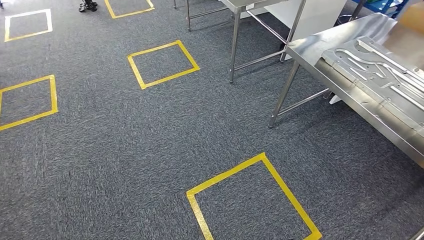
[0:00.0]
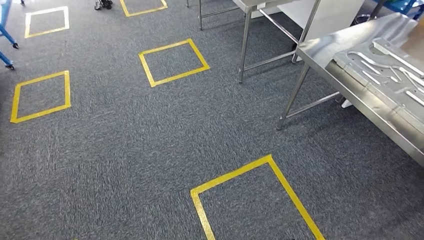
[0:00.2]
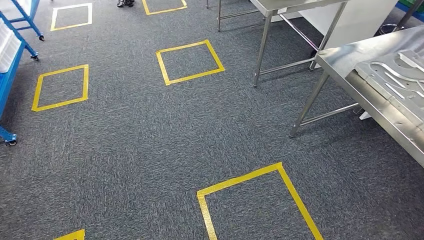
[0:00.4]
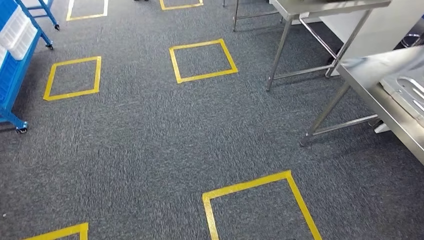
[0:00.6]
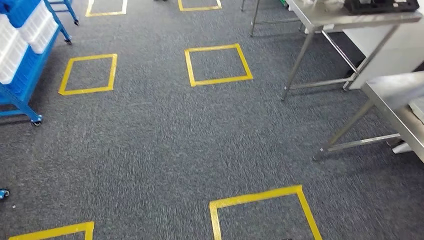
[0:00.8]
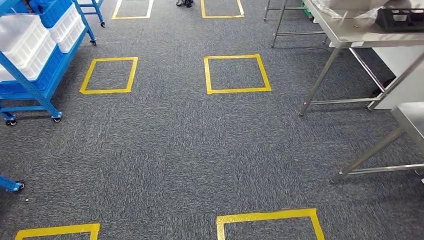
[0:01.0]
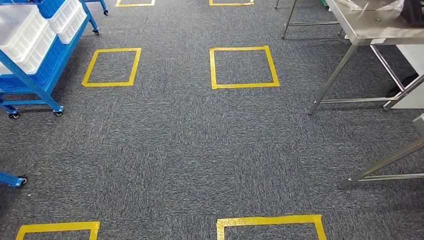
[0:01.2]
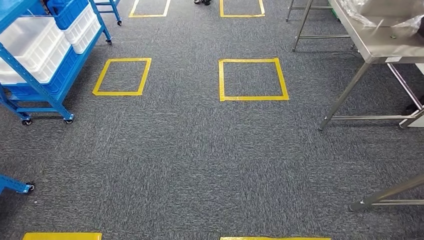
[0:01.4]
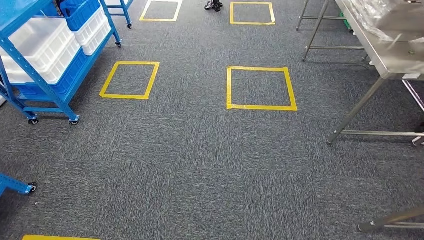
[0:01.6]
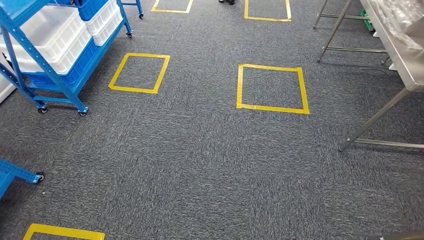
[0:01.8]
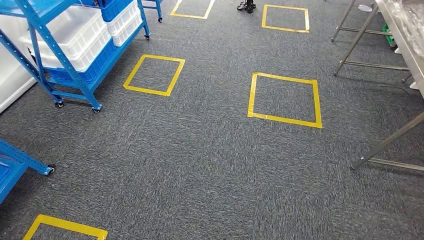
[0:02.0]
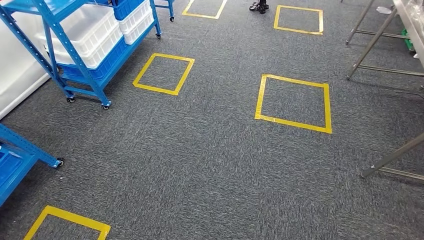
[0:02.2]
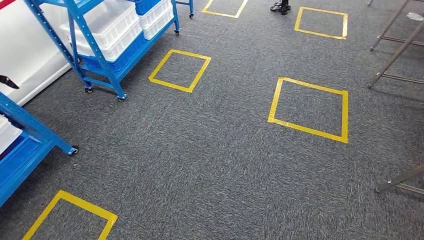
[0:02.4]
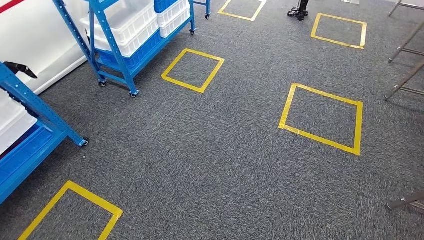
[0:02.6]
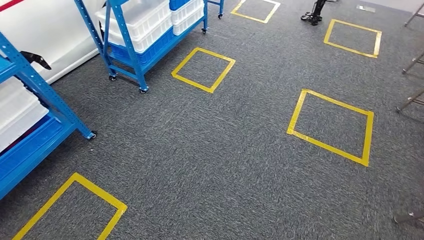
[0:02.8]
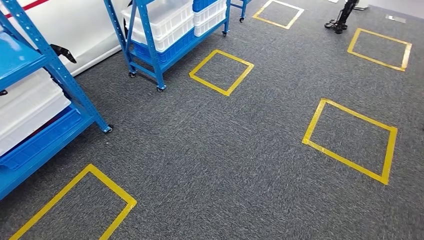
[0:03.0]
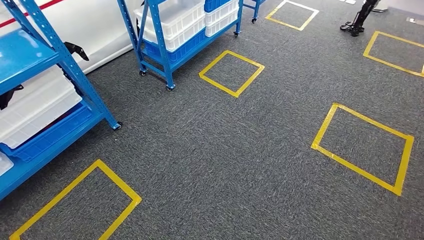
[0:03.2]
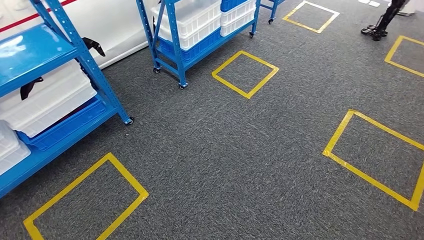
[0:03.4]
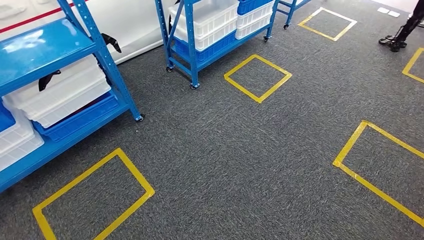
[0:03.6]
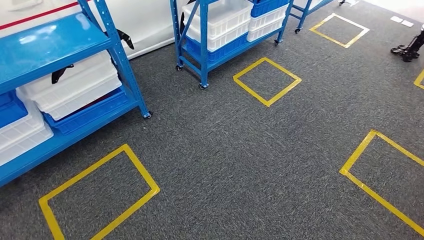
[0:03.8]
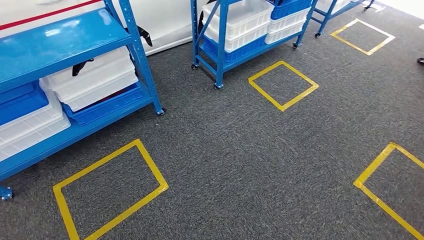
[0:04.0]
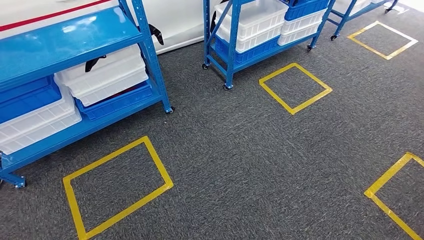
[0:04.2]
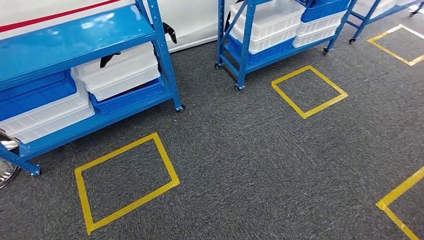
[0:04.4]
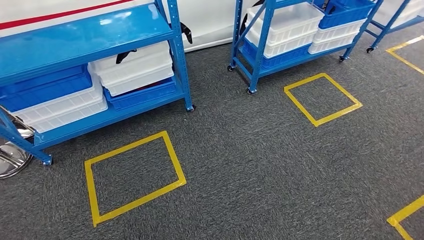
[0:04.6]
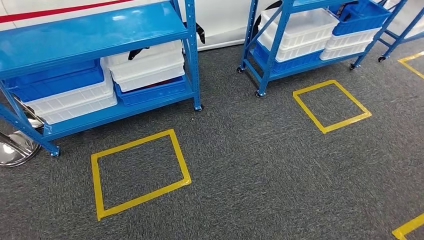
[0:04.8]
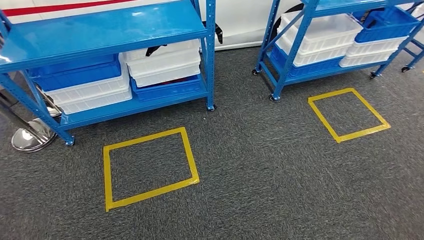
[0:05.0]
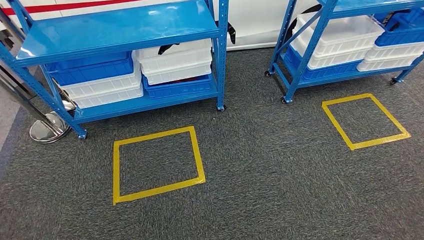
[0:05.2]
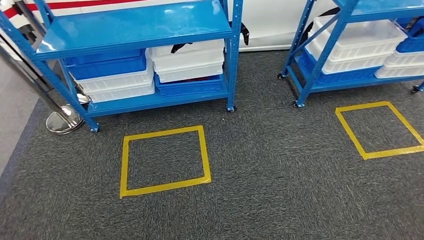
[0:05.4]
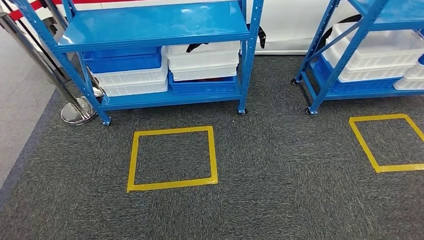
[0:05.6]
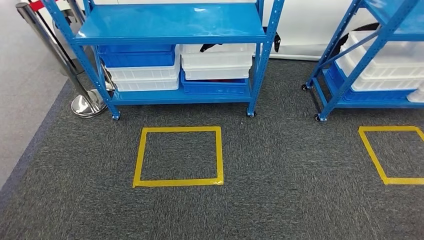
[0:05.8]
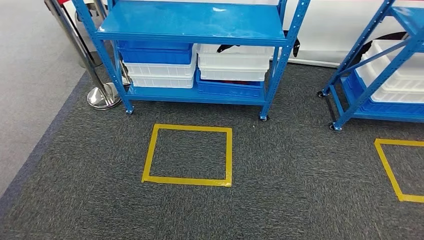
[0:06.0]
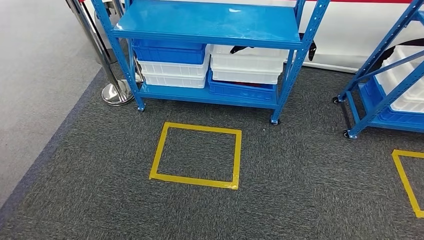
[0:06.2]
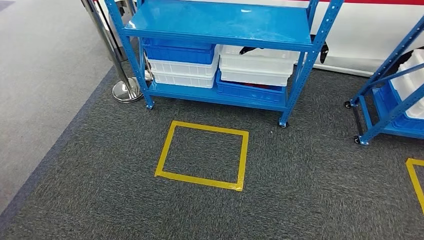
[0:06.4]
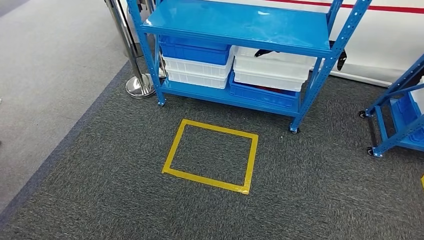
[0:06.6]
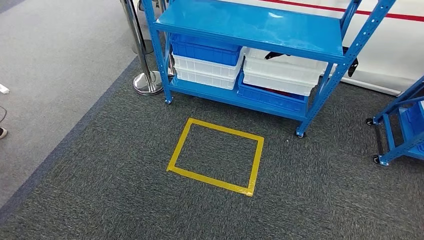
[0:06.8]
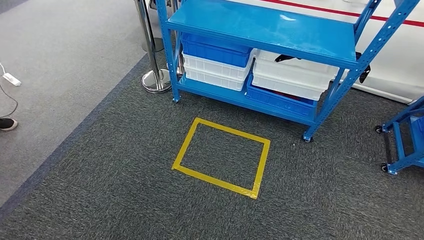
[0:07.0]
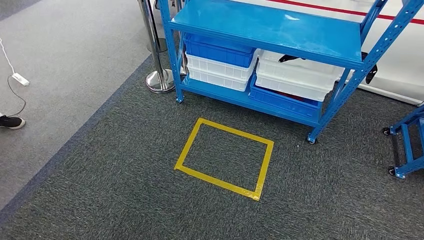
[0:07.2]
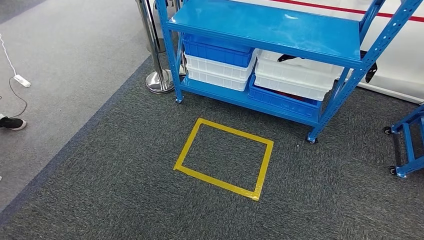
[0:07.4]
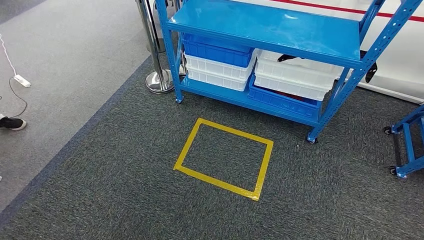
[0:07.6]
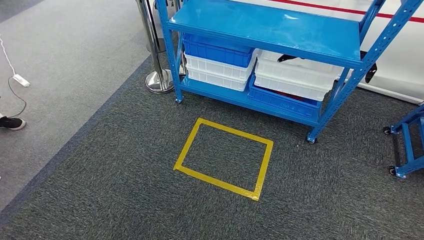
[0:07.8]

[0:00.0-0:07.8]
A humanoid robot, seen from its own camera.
Step, 0:00.0 to 0:07.8: Return to the initial position at the shelf.
